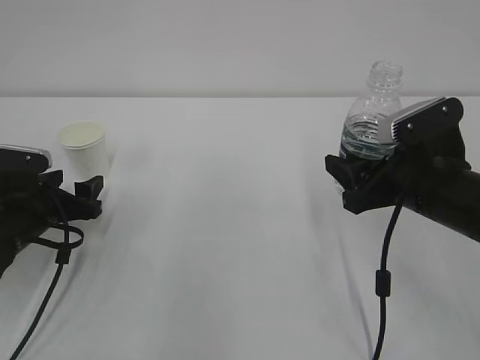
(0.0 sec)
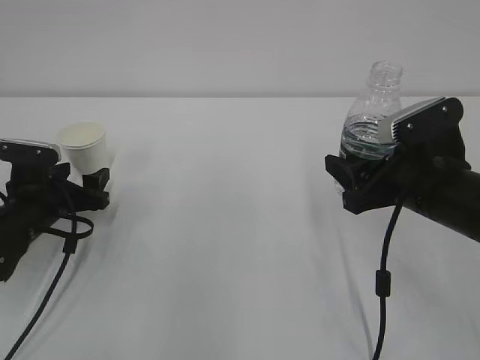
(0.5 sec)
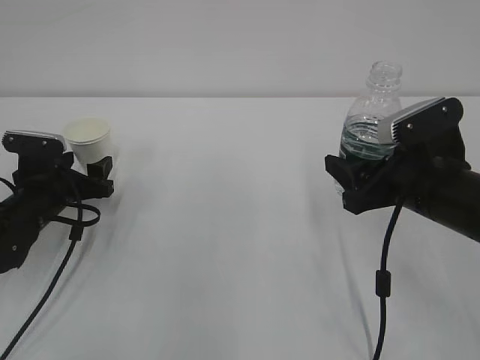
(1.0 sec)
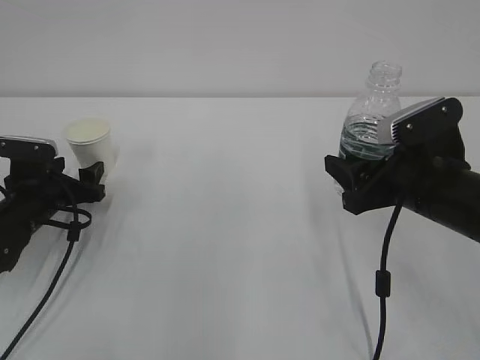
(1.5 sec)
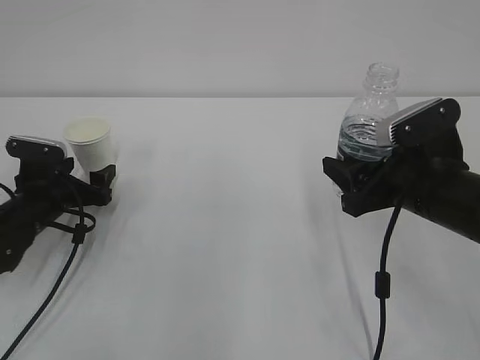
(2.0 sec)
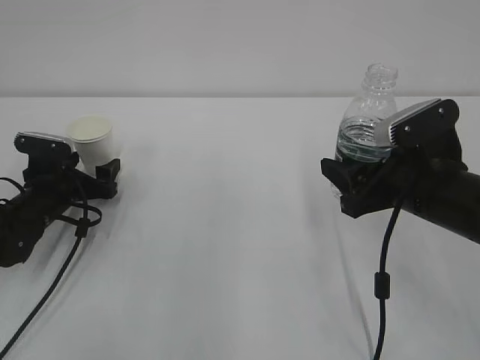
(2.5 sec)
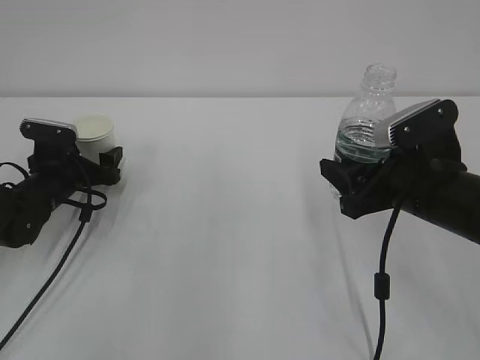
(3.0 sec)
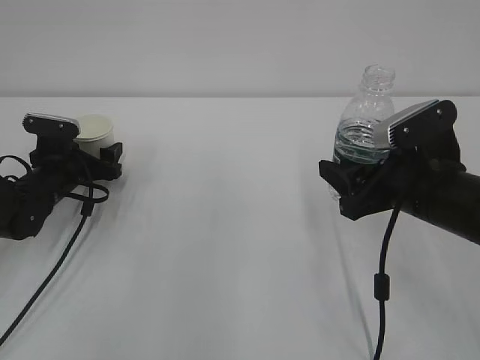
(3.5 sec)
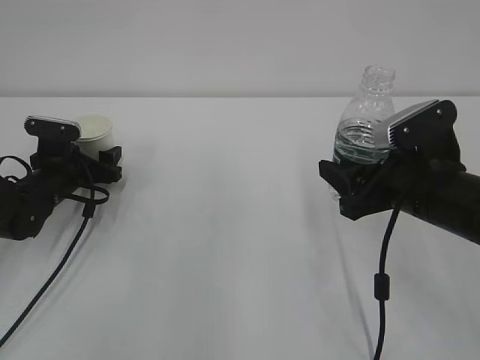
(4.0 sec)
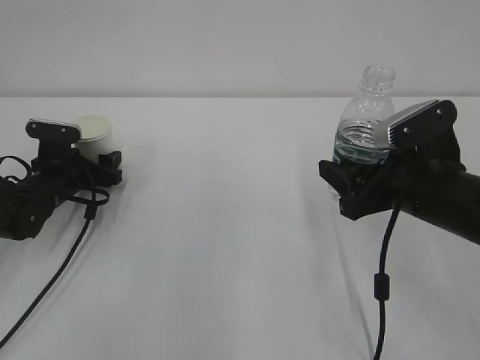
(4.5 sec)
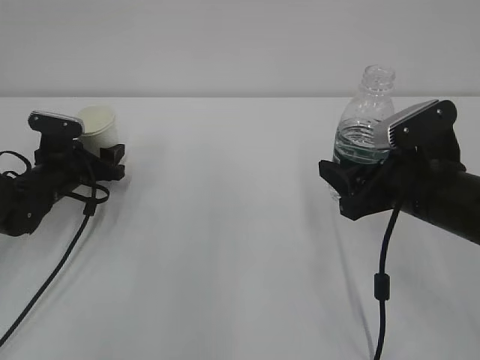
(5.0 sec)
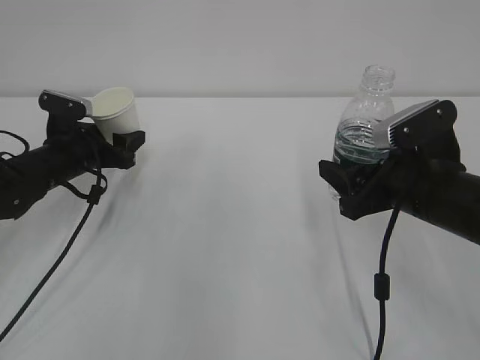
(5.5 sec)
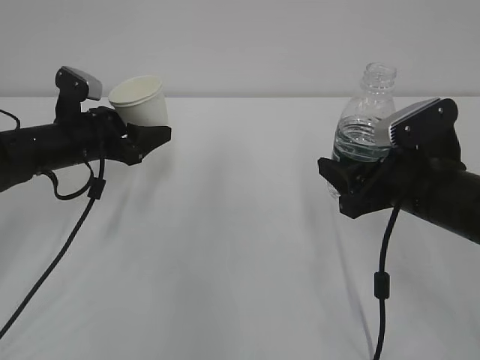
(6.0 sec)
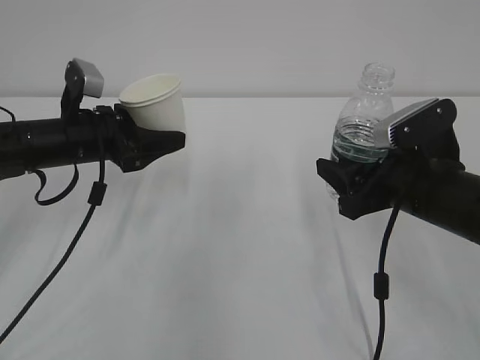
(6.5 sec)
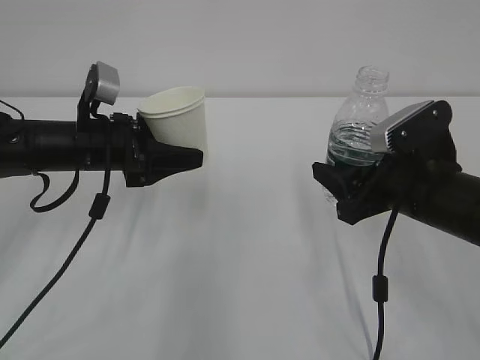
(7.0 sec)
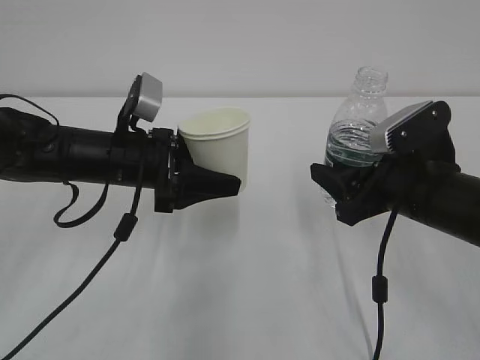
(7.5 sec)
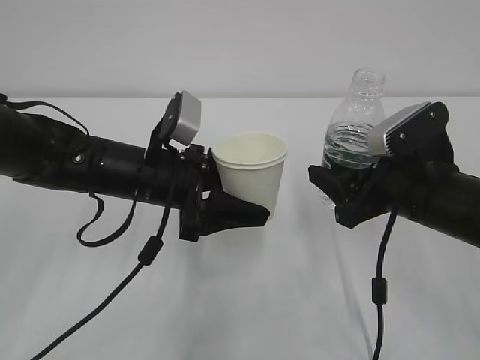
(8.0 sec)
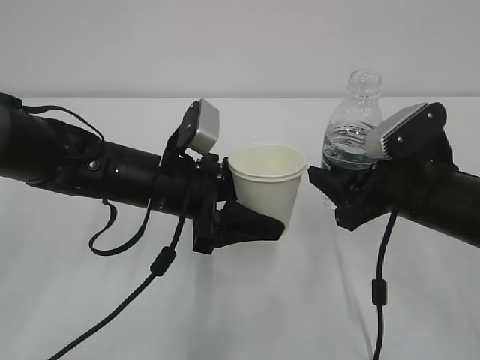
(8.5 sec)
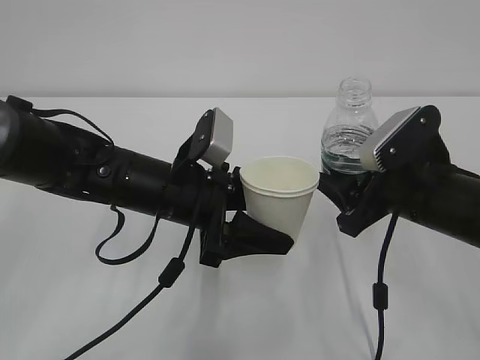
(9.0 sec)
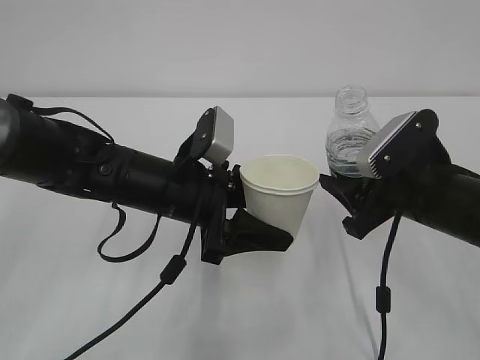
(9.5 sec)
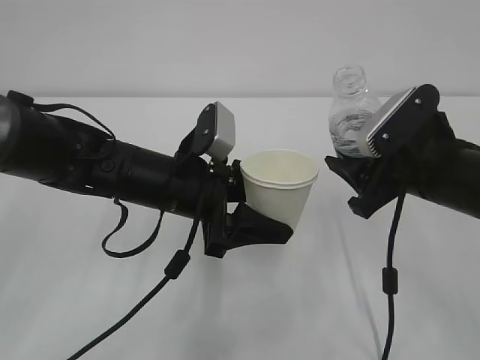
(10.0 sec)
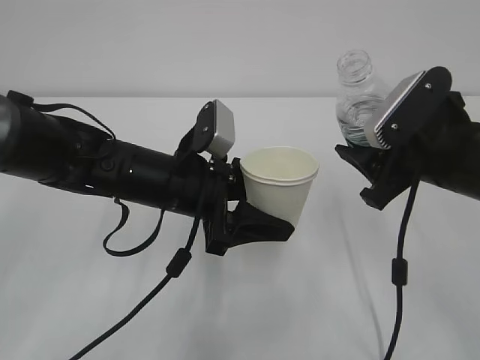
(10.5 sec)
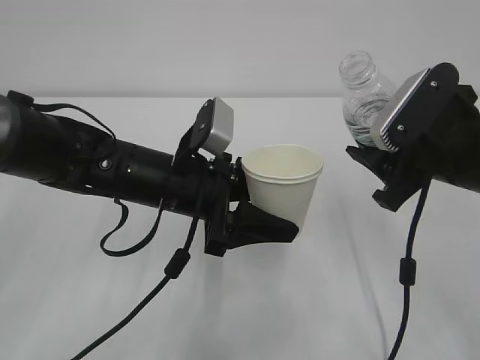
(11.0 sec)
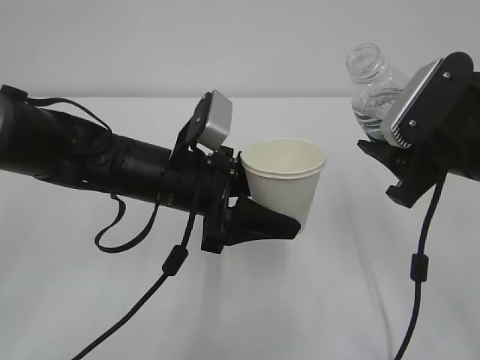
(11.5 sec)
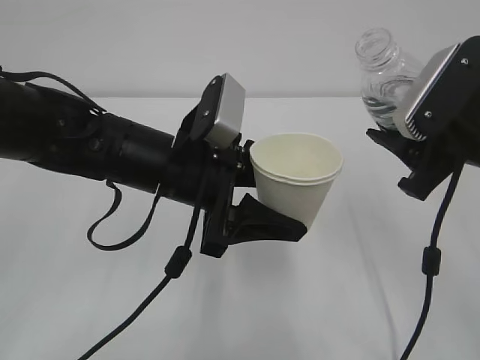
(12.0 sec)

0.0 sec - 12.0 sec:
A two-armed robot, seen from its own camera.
0.0 sec - 2.0 sec: The left gripper opens its fingers.
2.0 sec - 4.0 sec: The left gripper closes its fingers.
4.0 sec - 6.0 sec: The left gripper goes some 10 cm upward and to the right, and closes.
6.0 sec - 8.0 sec: The left gripper moves to the right and backward, approximately 15 cm.
10.0 sec - 12.0 sec: The right gripper goes some 5 cm upward; the left gripper ends up about 5 cm from where it was.

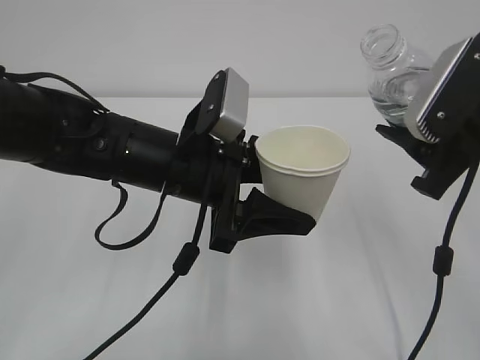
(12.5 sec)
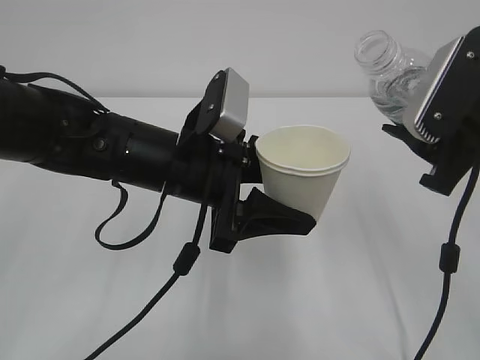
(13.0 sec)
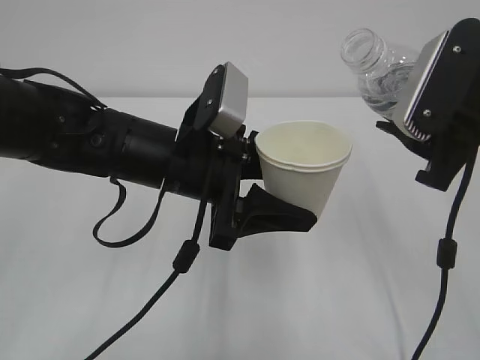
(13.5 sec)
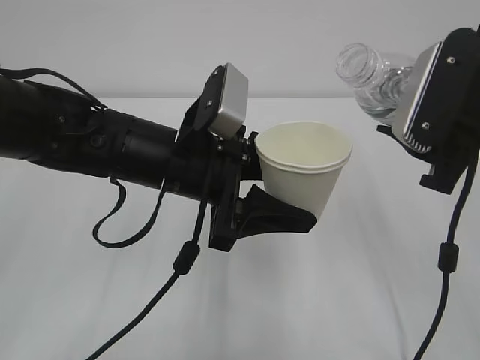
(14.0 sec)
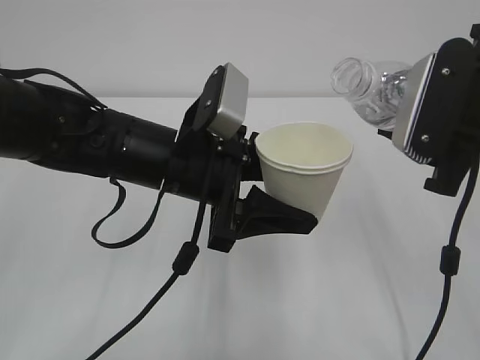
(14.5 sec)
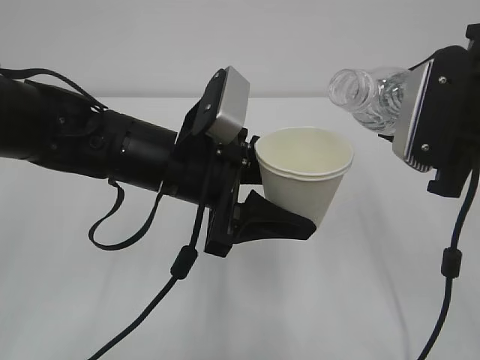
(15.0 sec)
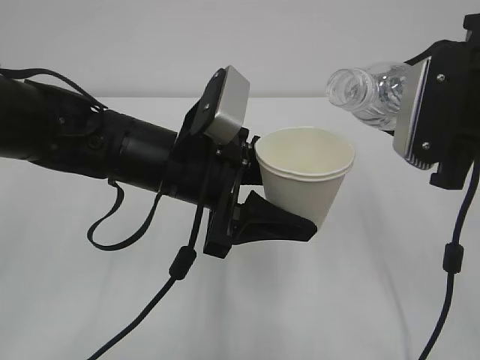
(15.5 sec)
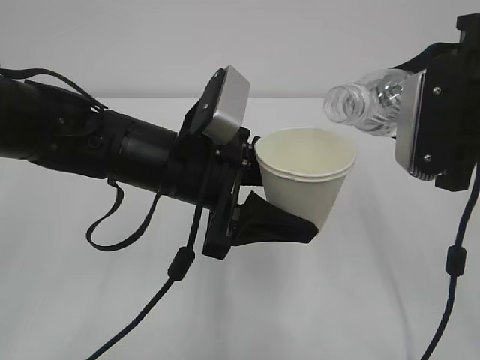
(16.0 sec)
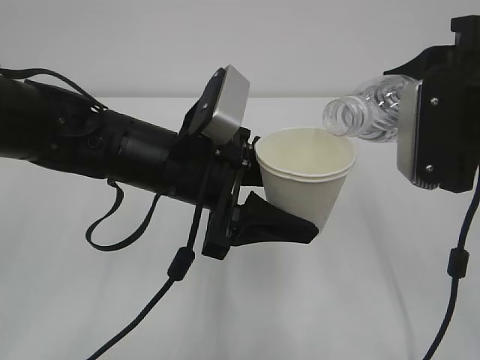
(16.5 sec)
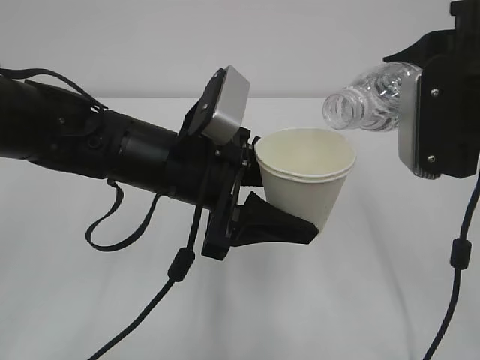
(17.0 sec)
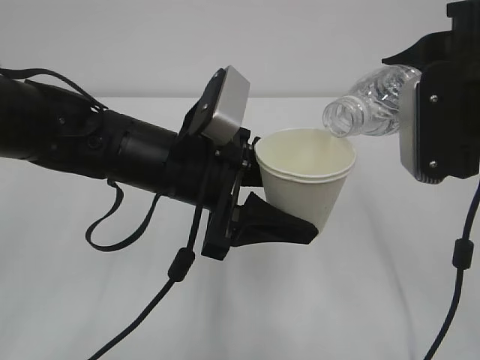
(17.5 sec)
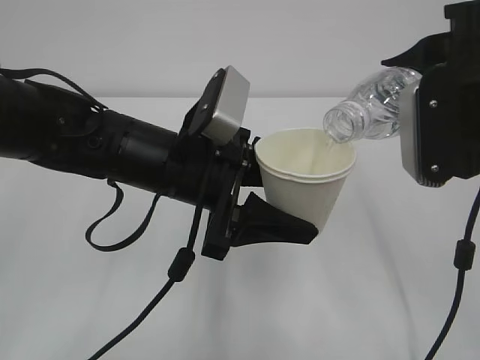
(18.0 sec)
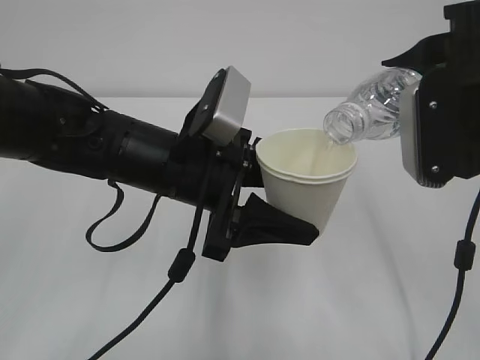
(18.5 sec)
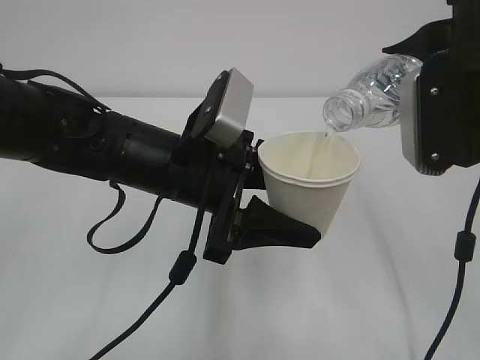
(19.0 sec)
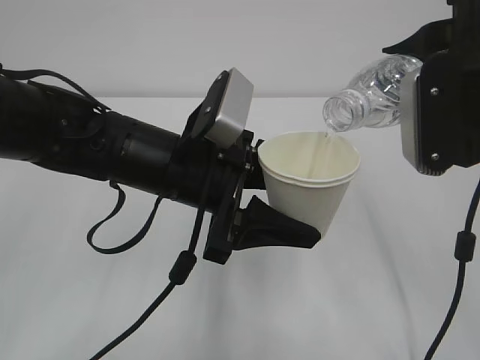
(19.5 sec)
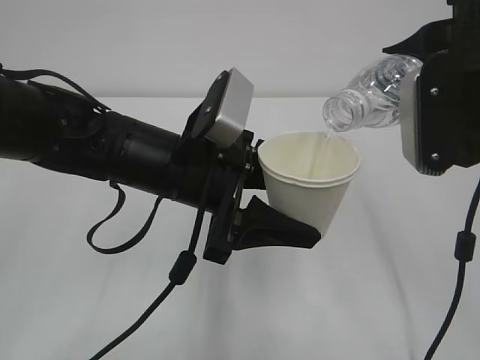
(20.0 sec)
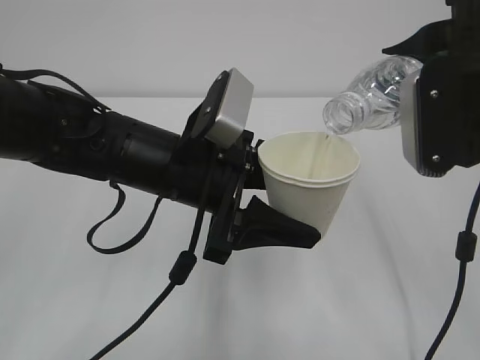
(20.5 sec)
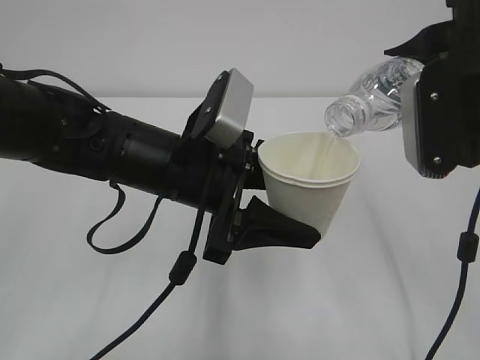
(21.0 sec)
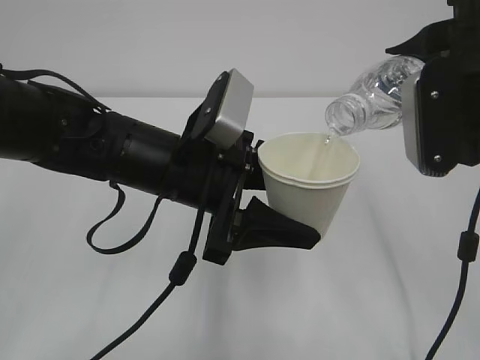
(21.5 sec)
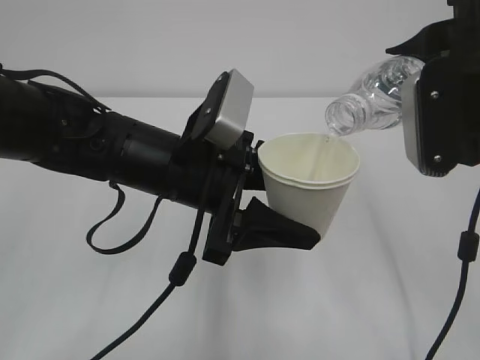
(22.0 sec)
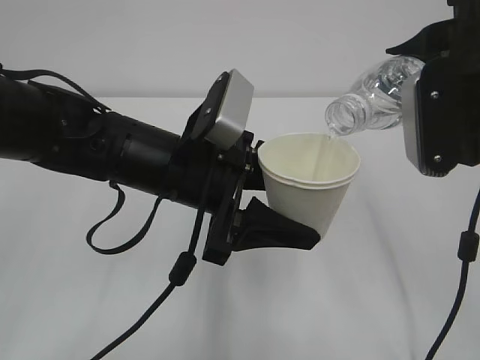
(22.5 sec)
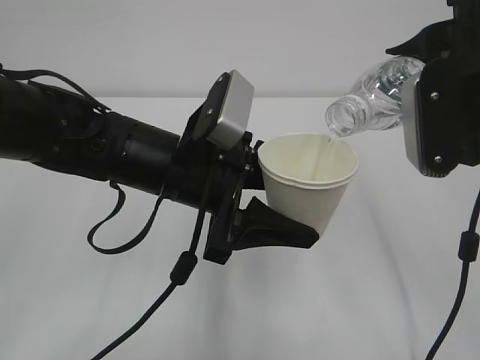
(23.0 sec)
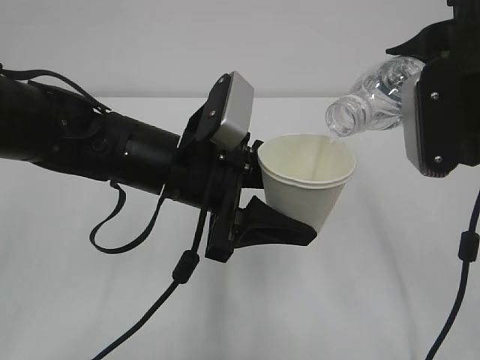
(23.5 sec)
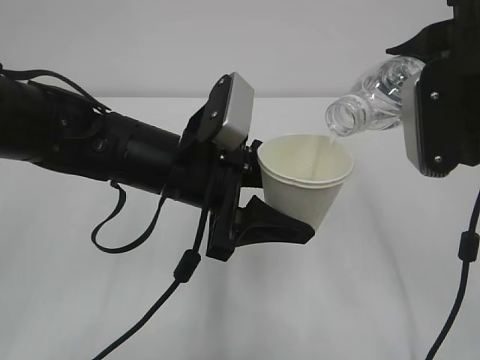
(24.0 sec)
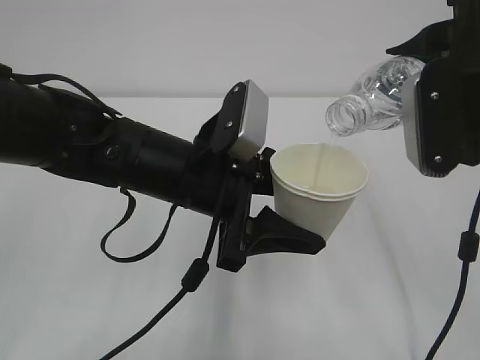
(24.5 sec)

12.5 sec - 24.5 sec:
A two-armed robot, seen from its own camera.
12.5 sec - 14.5 sec: There are only small adjustments of the grippers.
14.5 sec - 16.5 sec: The grippers move only a little.
16.5 sec - 18.5 sec: There are only small adjustments of the grippers.
18.5 sec - 22.5 sec: Neither gripper changes place.
22.5 sec - 24.5 sec: The grippers stay close to where they were, moving slightly.

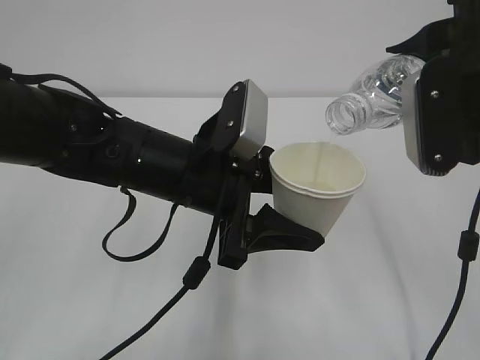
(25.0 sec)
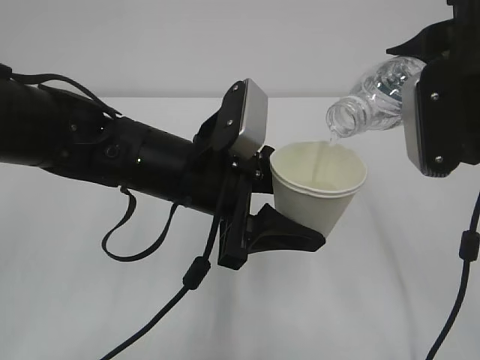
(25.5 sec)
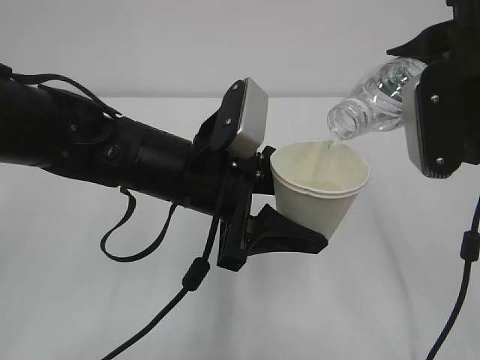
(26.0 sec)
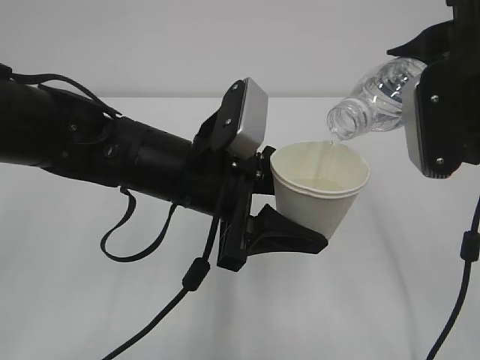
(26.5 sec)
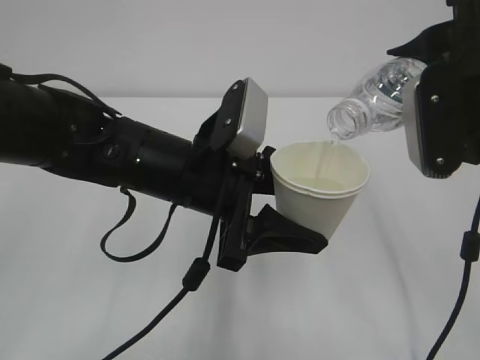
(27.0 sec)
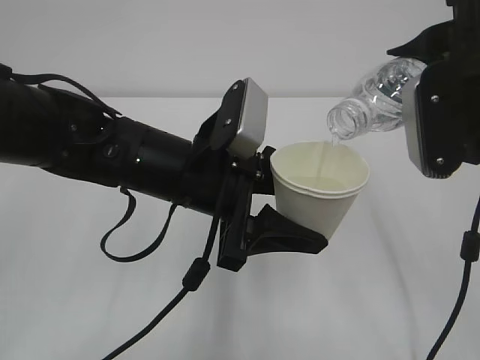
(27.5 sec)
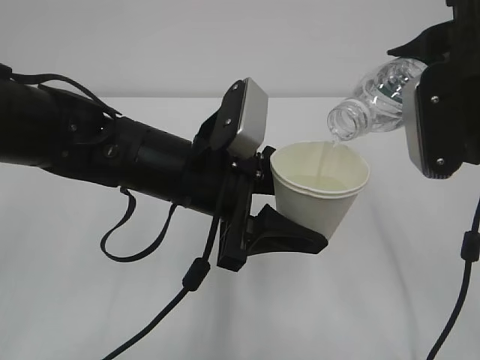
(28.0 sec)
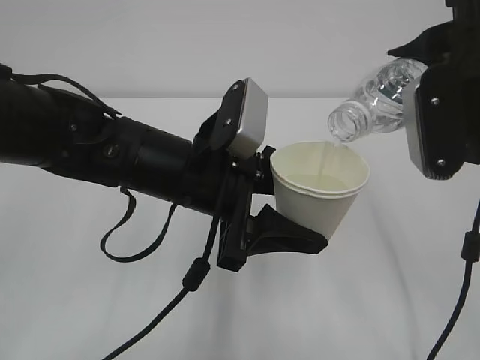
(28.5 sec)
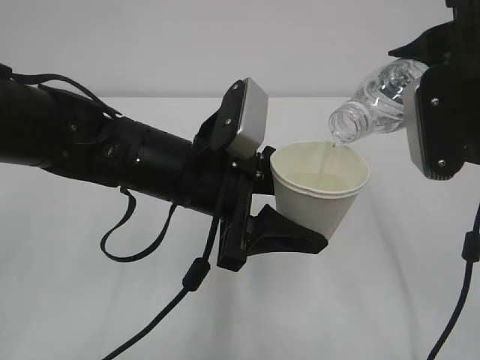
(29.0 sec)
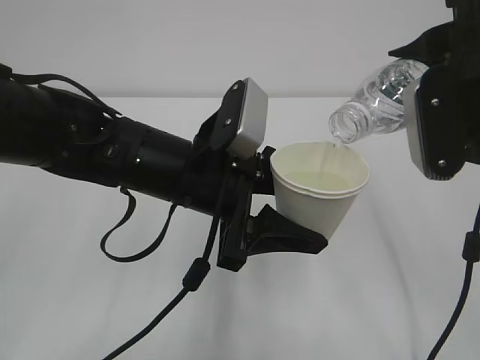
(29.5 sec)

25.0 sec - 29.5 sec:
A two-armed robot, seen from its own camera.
25.0 sec - 29.5 sec: Neither gripper changes place.
